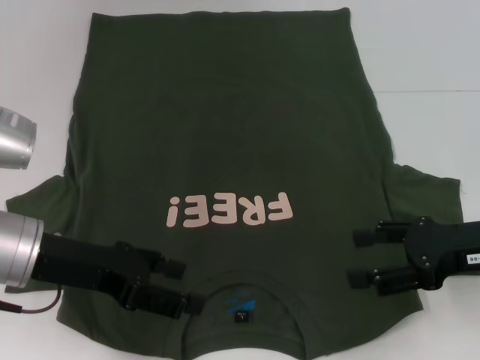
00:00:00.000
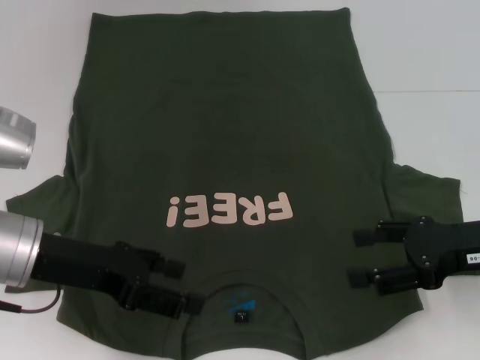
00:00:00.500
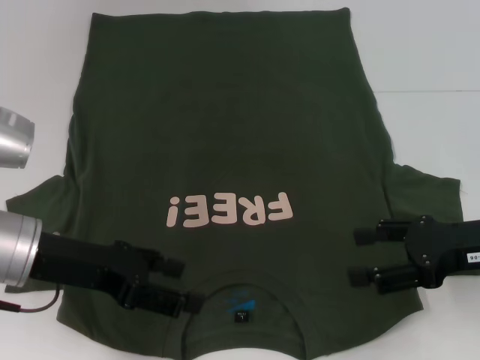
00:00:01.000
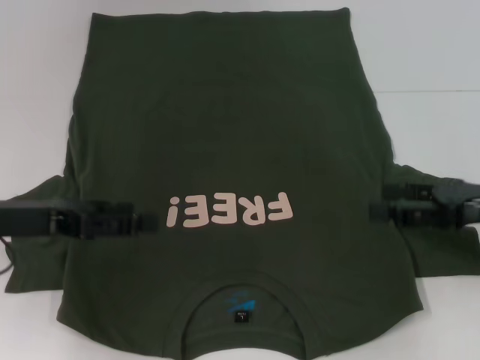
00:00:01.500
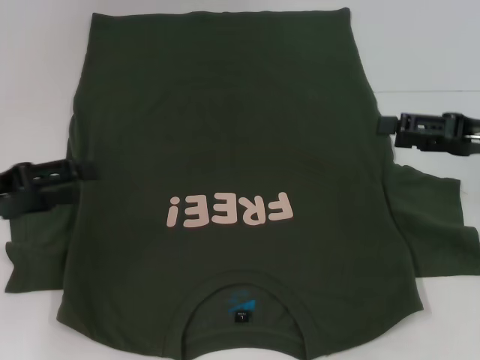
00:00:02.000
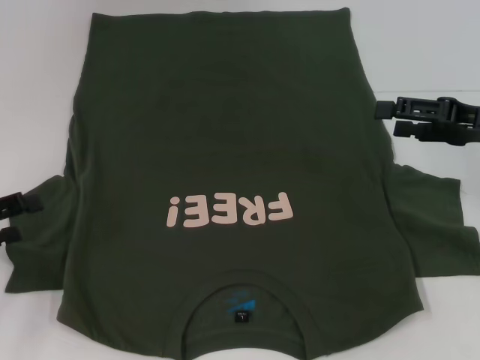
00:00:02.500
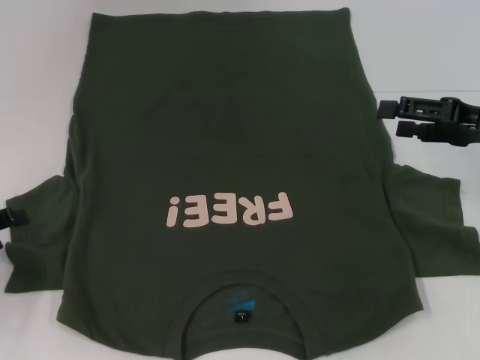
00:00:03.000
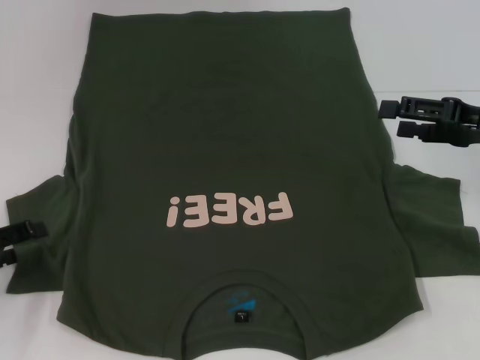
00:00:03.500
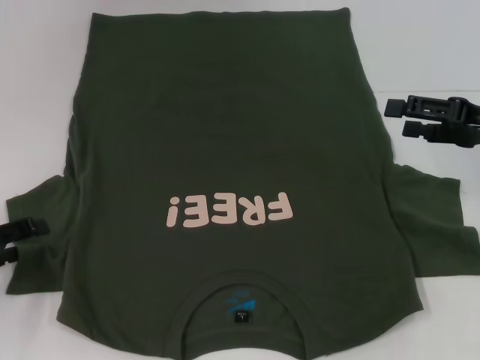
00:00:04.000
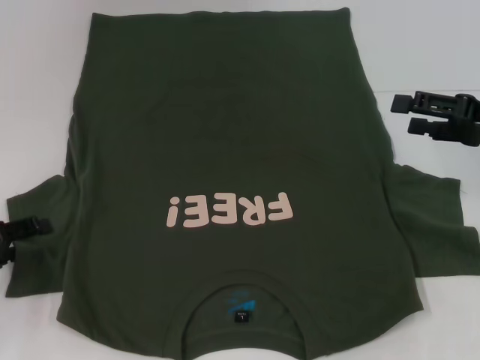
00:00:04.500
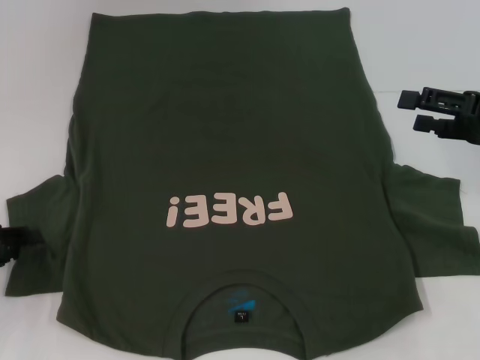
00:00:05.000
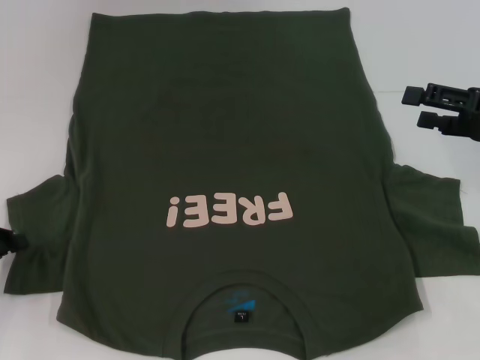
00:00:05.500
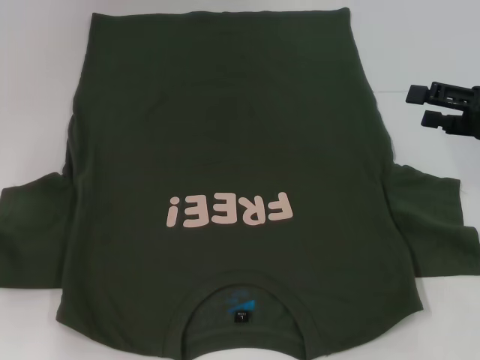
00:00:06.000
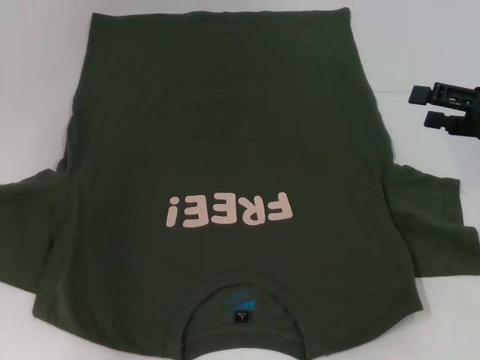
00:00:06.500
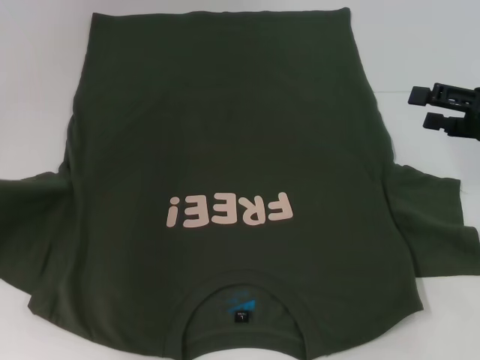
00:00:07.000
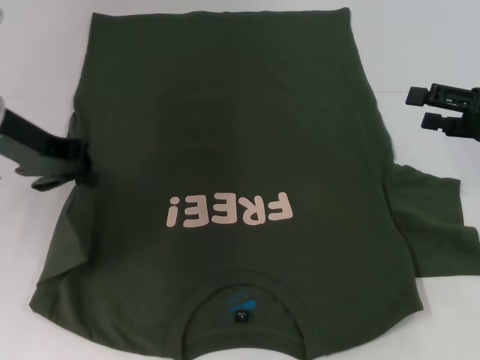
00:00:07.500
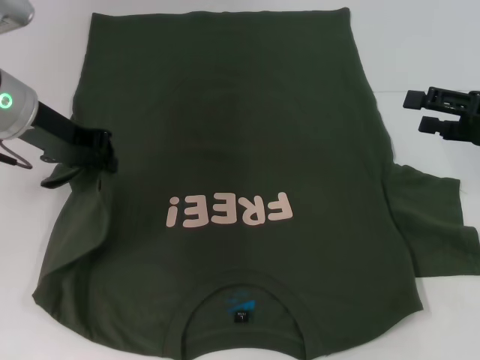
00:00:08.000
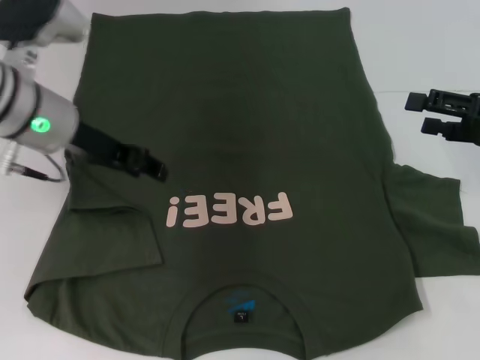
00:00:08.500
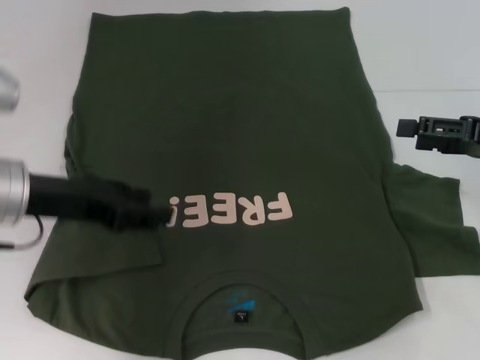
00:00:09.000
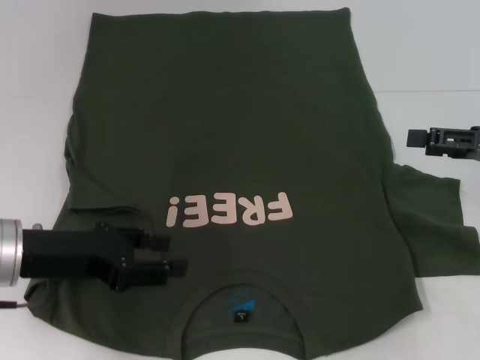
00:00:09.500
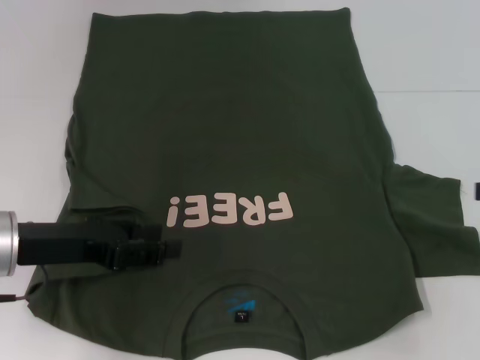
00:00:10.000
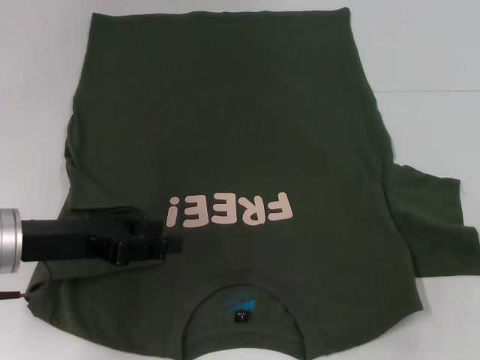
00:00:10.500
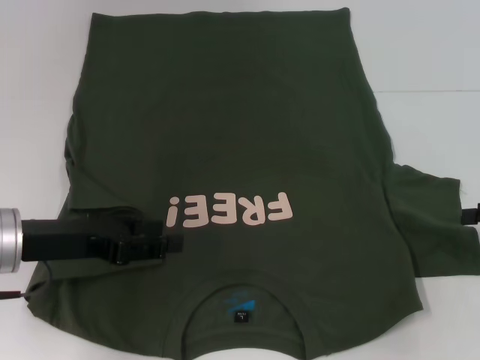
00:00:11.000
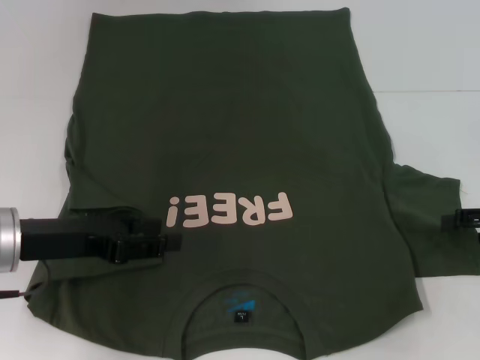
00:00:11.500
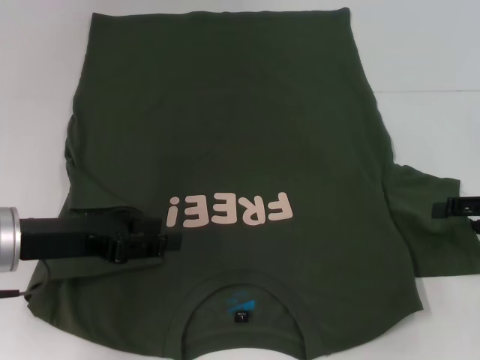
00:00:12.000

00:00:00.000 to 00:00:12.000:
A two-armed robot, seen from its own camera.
Step, 00:00:00.000 to 00:00:08.000: Fold the bottom left sleeve with your left hand.
00:00:00.000 to 00:00:02.000: The left gripper shifts roughly 10 cm to the left; the right gripper heads forward, covering some 5 cm.
00:00:02.000 to 00:00:04.000: The left gripper is displaced downward by about 5 cm.
00:00:04.000 to 00:00:06.000: The left gripper moves approximately 5 cm, and closes up.
00:00:06.000 to 00:00:08.000: The left gripper moves to the right, forward and upward, roughly 20 cm.
00:00:08.000 to 00:00:10.000: The left gripper is displaced backward and downward by about 15 cm, and opens up; the right gripper shifts about 5 cm to the right.
00:00:10.000 to 00:00:12.000: The right gripper is displaced downward by approximately 5 cm.

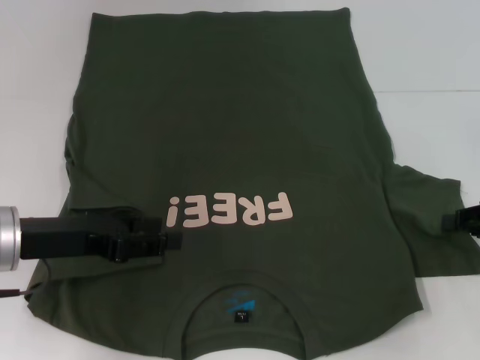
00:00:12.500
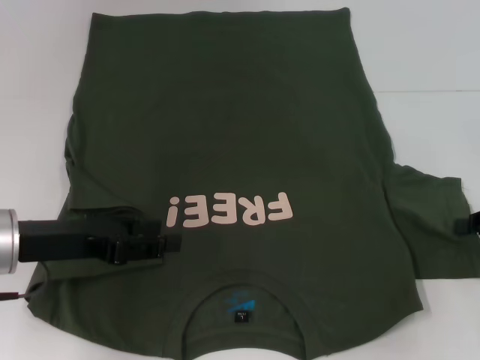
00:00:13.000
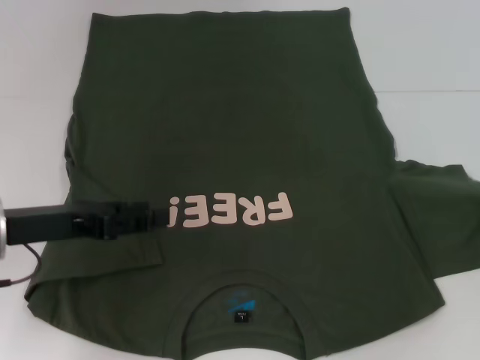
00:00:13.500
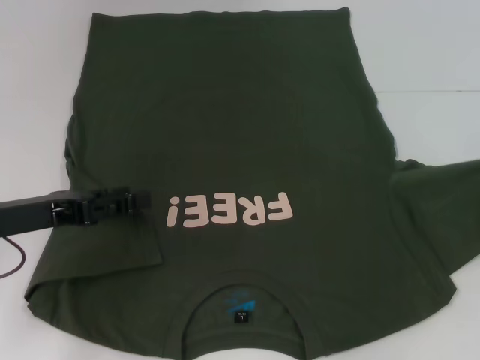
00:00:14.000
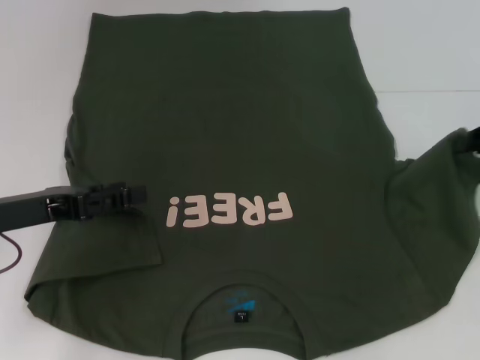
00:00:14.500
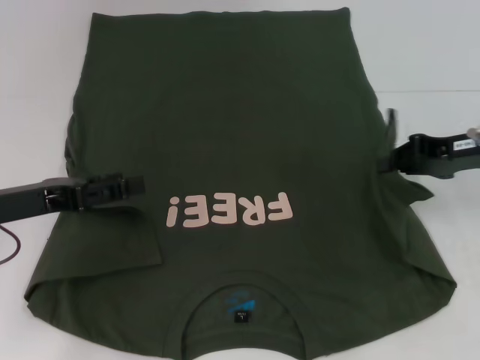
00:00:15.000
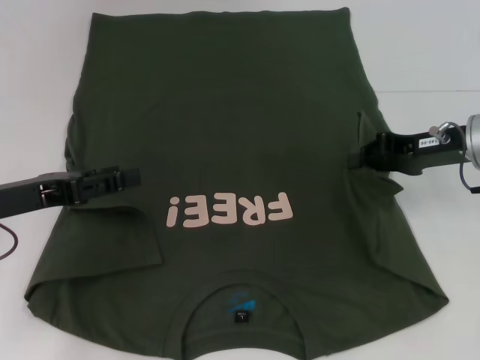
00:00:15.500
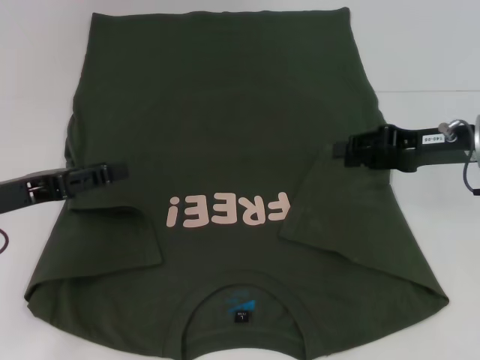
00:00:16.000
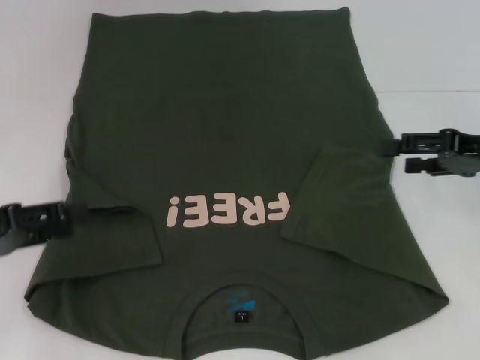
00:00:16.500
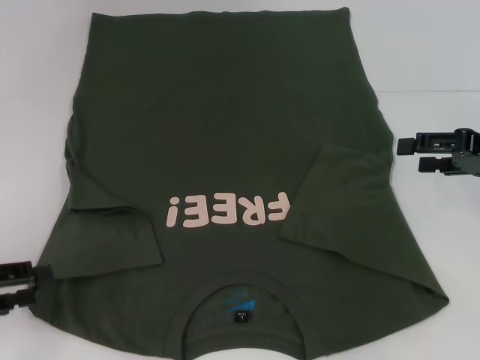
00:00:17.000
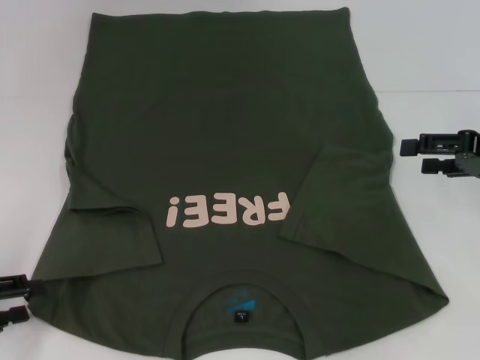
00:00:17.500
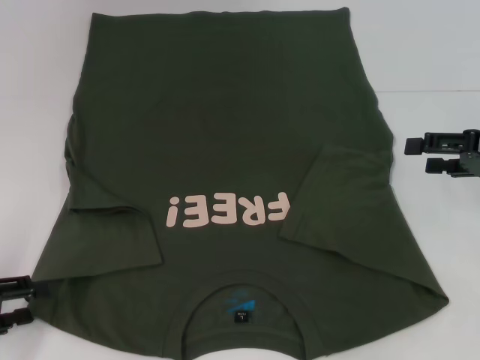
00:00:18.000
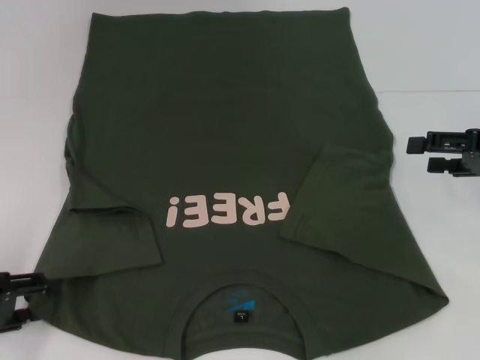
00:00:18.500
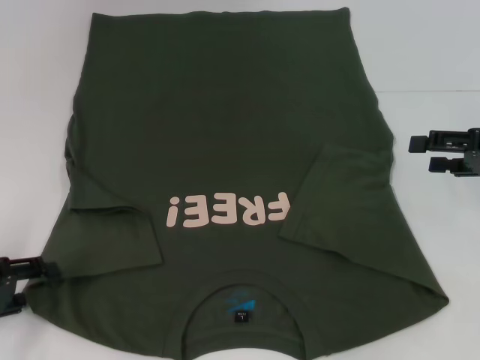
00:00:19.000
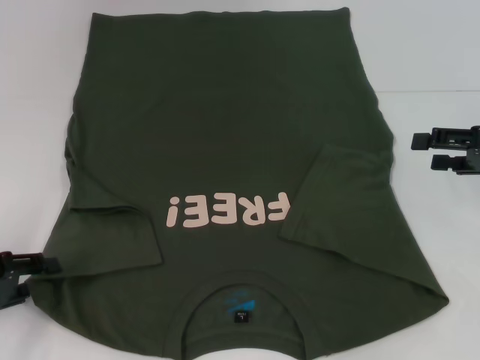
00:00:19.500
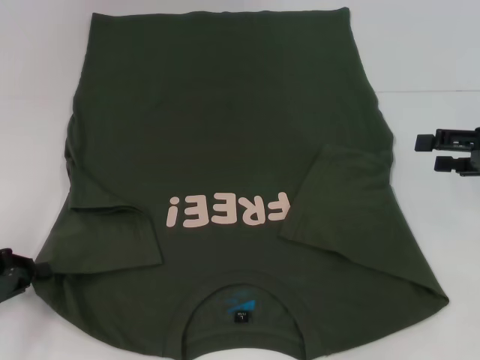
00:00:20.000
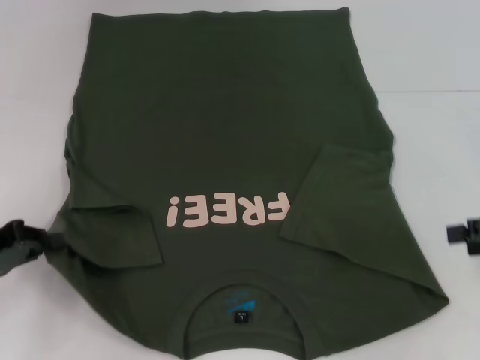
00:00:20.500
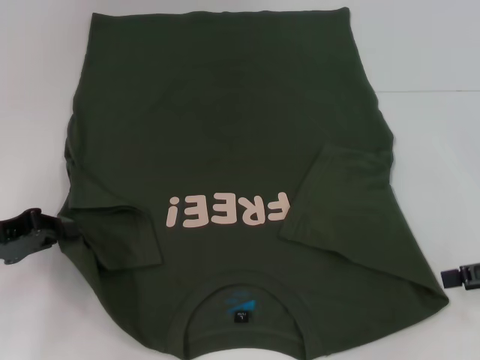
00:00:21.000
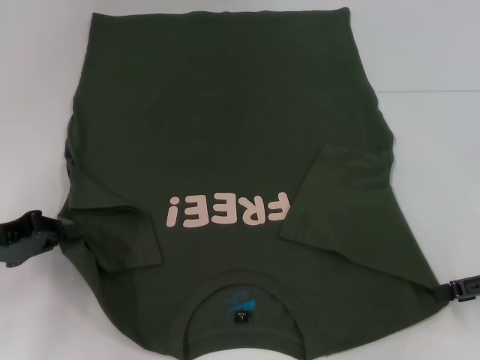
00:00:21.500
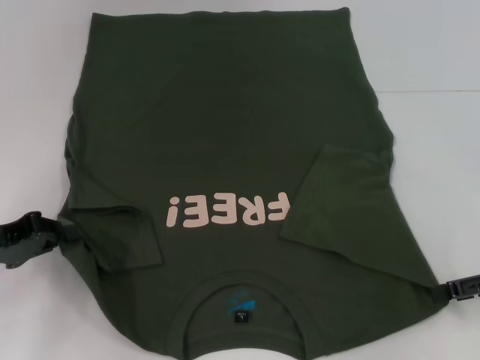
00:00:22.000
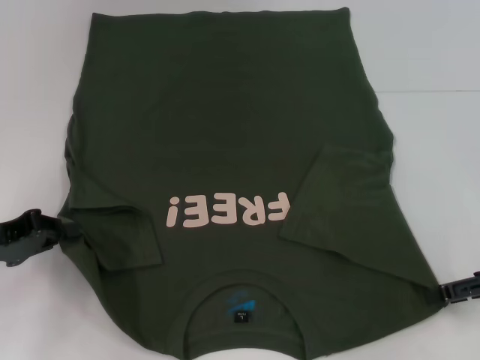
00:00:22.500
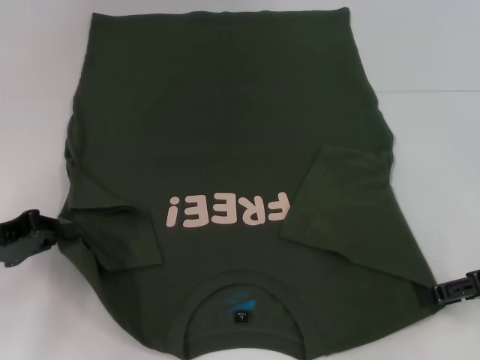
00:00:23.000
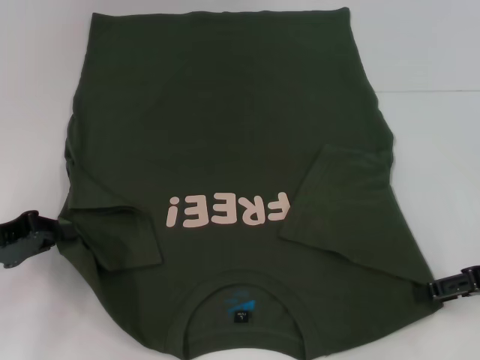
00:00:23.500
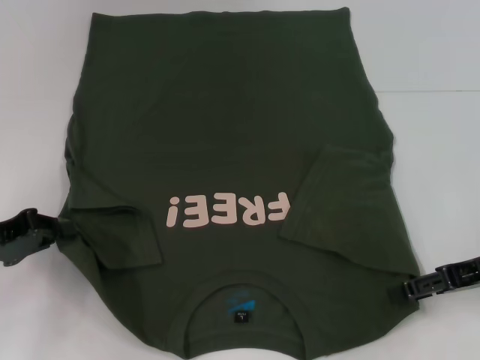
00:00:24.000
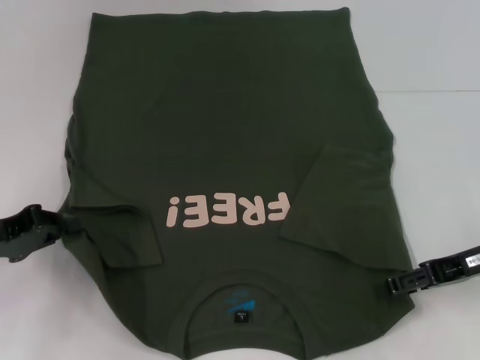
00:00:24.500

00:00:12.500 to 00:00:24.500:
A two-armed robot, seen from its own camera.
Step, 00:00:12.500 to 00:00:15.500: Fold the bottom right sleeve with your right hand.
Step, 00:00:16.000 to 00:00:20.000: Grab the bottom left corner with your left hand.
00:00:12.500 to 00:00:14.500: The right gripper travels upward and forward by roughly 10 cm, and closes.
00:00:14.500 to 00:00:16.500: The left gripper shifts by approximately 5 cm; the right gripper opens its fingers.
00:00:16.500 to 00:00:18.500: The left gripper is displaced downward by roughly 5 cm.
00:00:18.500 to 00:00:20.500: The right gripper ends up about 5 cm from where it was. Meanwhile the left gripper closes up.
00:00:20.500 to 00:00:22.500: There are only small adjustments of the grippers.
00:00:22.500 to 00:00:24.500: The right gripper goes roughly 5 cm to the left.

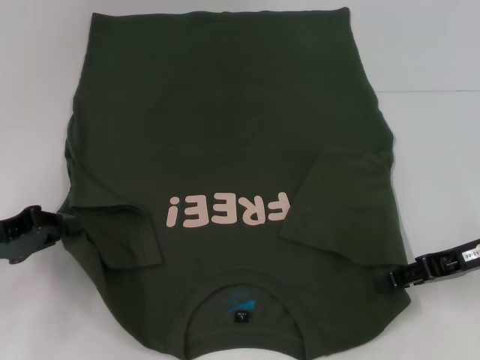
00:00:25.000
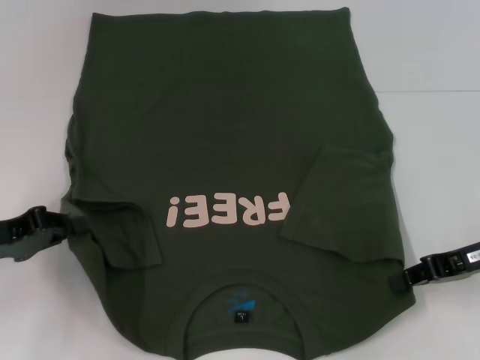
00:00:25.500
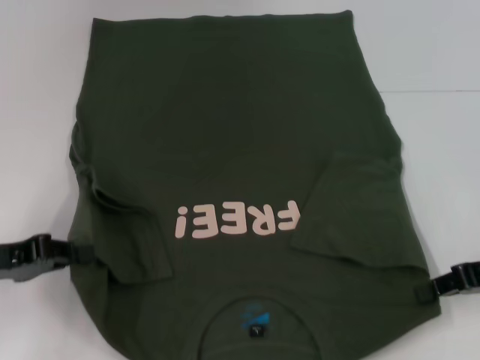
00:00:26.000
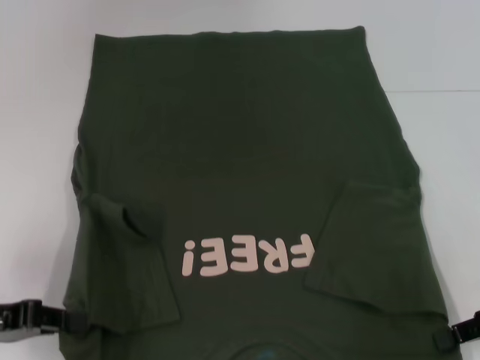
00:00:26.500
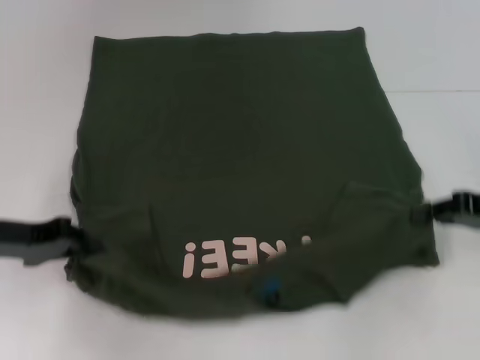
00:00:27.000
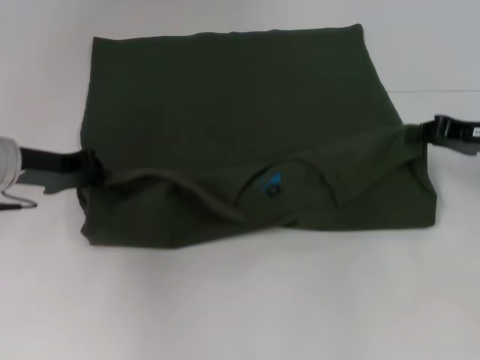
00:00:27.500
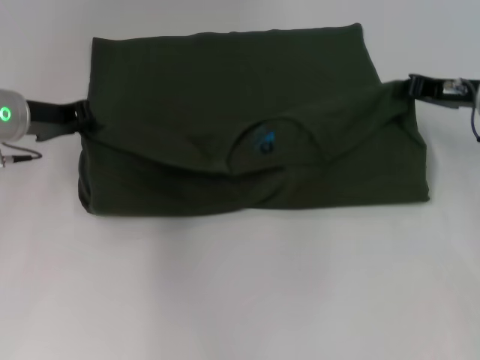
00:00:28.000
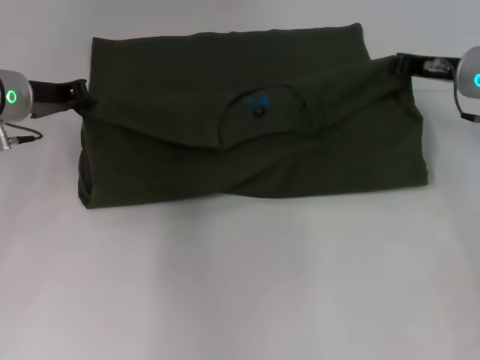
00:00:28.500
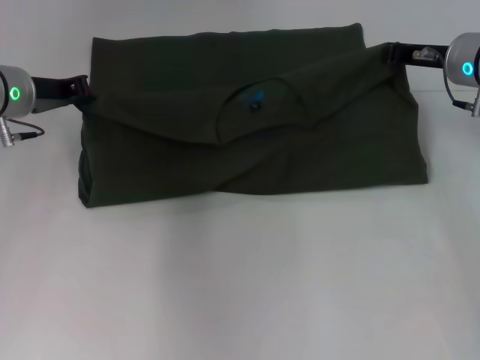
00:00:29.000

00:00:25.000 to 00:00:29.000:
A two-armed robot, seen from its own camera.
00:00:25.000 to 00:00:27.000: The right gripper closes up.
00:00:27.000 to 00:00:29.000: The right gripper is displaced forward and to the left by roughly 15 cm; the left gripper moves forward, roughly 15 cm.
